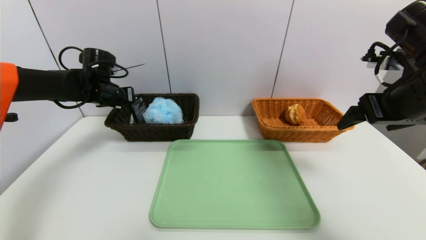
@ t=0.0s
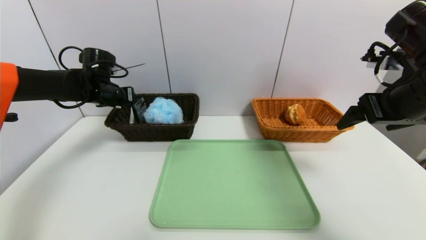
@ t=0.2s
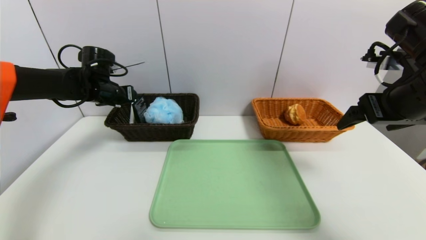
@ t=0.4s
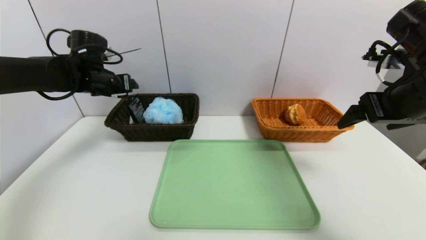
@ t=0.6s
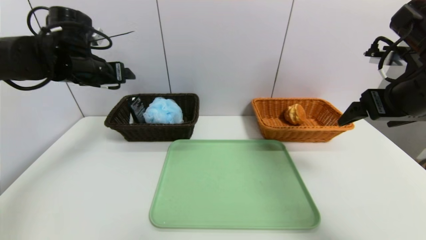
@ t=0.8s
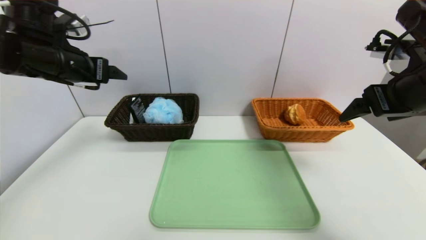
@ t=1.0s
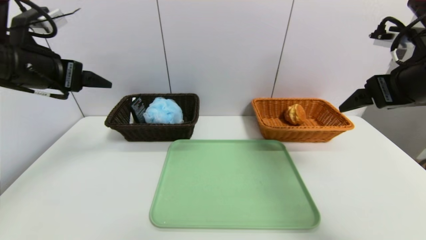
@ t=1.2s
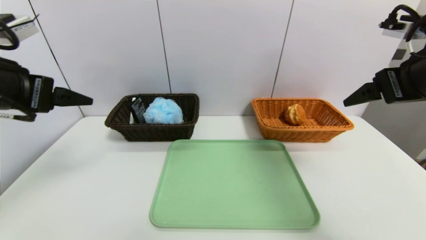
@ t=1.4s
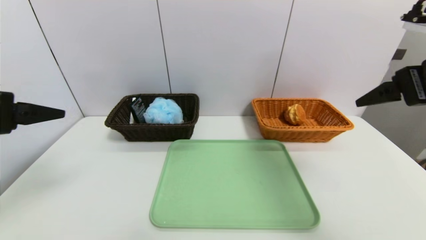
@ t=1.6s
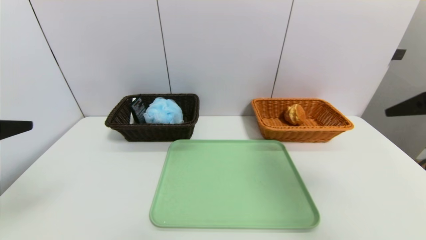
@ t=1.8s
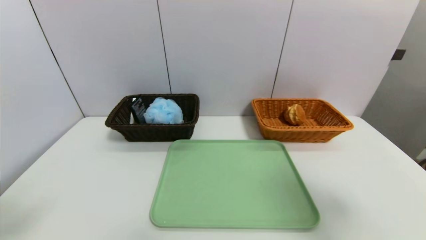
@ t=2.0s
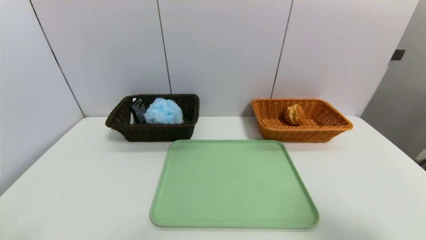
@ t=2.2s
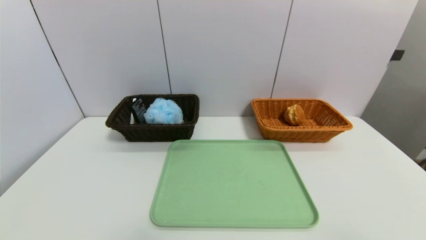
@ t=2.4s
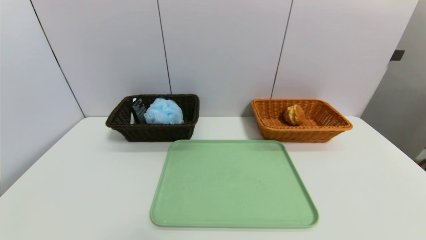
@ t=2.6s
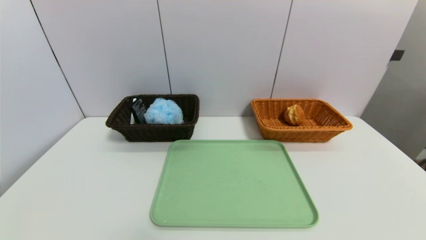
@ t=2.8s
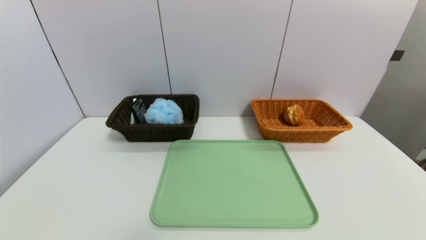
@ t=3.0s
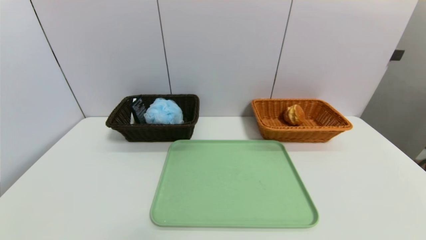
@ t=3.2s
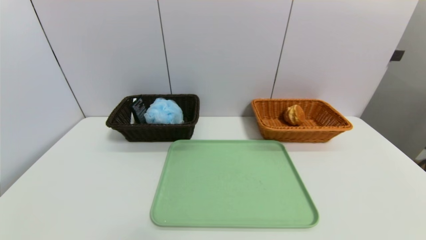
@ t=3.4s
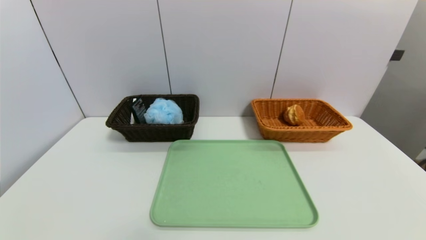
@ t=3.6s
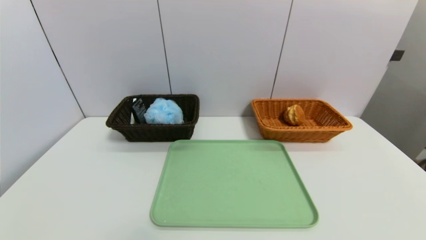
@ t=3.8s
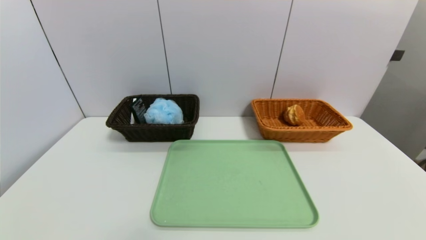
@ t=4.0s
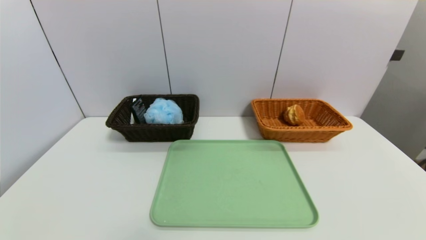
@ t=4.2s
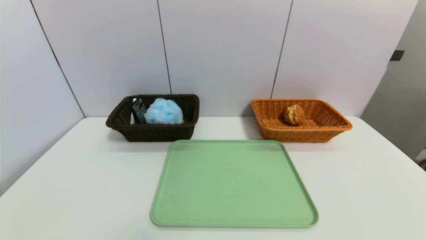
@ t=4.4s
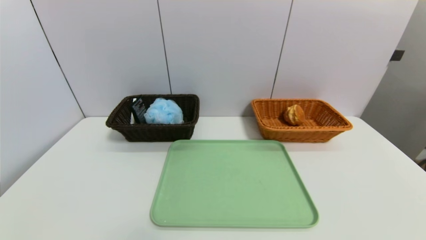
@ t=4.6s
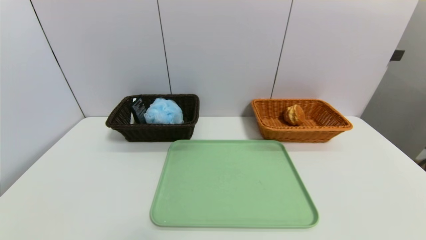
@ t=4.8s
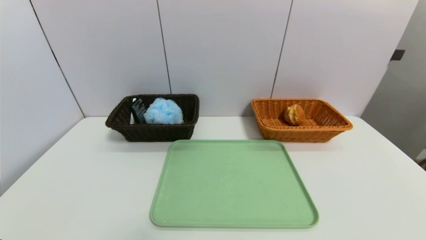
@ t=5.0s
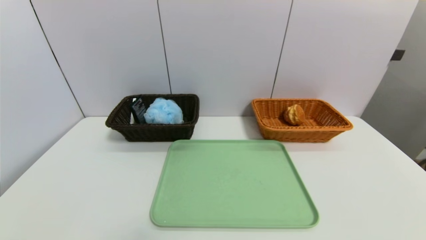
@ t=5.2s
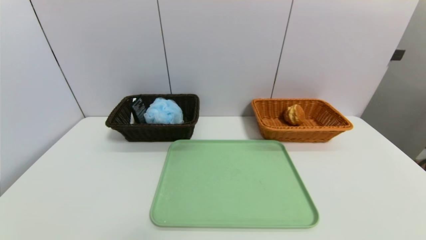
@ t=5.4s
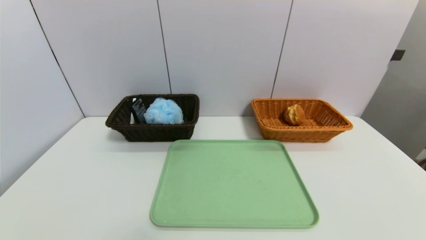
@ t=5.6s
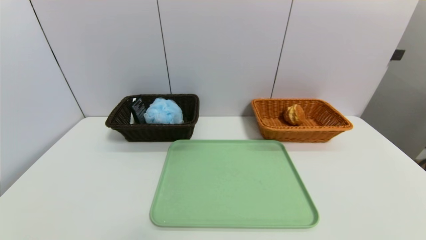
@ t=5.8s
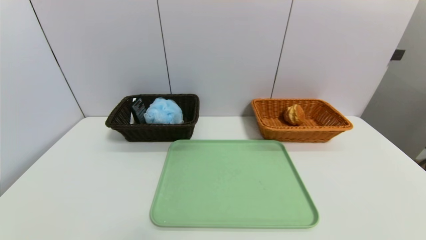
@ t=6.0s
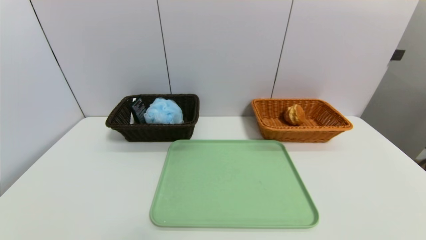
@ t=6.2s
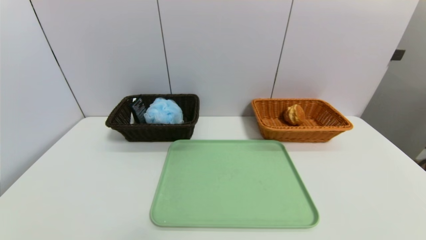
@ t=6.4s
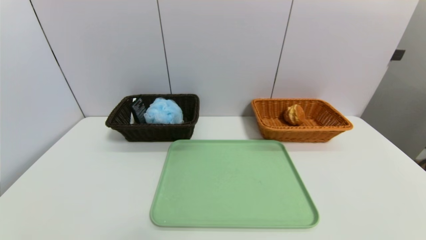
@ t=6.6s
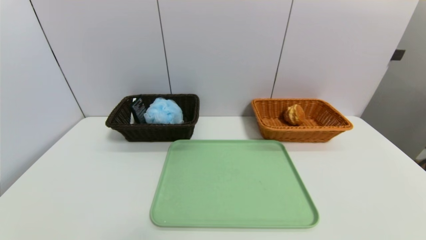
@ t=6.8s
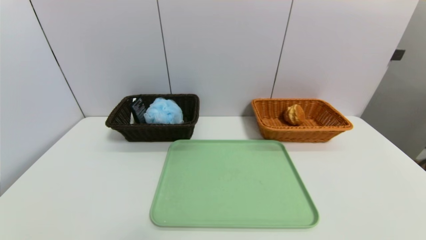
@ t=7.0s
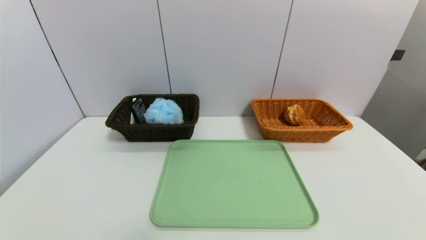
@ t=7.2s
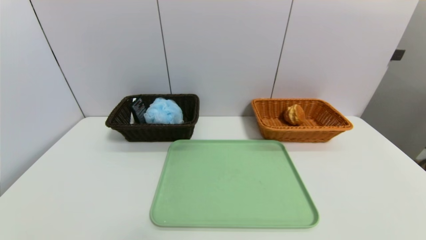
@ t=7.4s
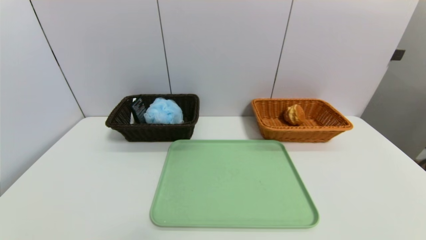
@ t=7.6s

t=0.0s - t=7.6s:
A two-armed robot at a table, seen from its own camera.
Task of the whole recording: place the food in the right basket with the right gripper, and place the non food items in the left basket with the left gripper.
t=0.0s - t=1.6s: The left gripper shifts some 30 cm backward, and opens its fingers. Meanwhile the right gripper changes place by approximately 5 cm.
t=1.6s - t=3.0s: The right gripper is displaced backward by some 30 cm. Meanwhile the left gripper travels backward and downward by some 30 cm.

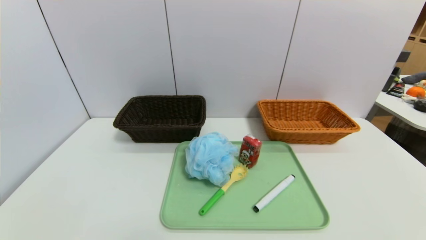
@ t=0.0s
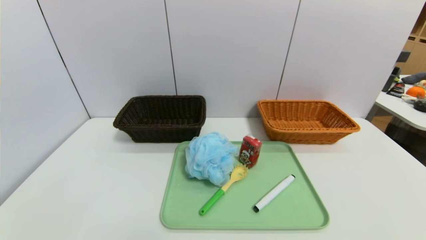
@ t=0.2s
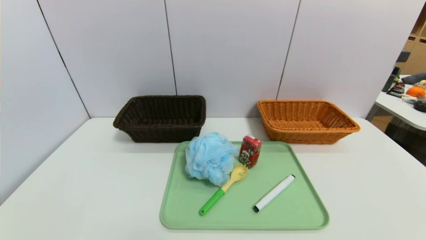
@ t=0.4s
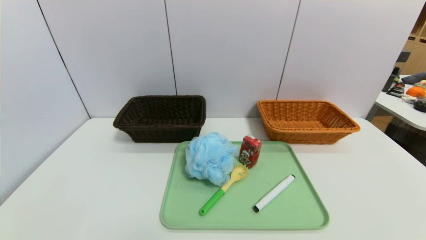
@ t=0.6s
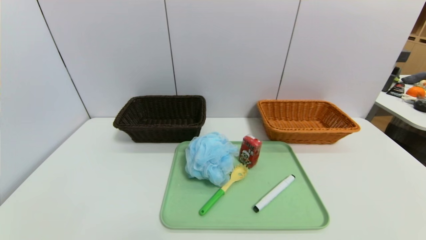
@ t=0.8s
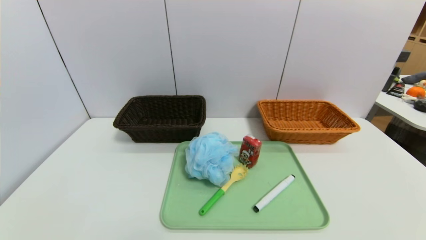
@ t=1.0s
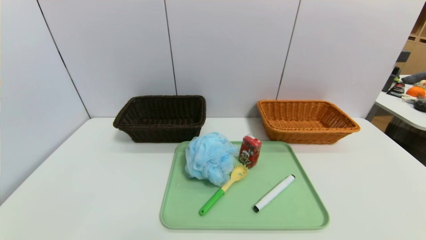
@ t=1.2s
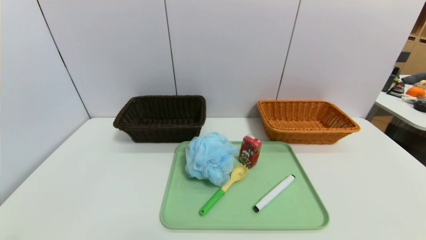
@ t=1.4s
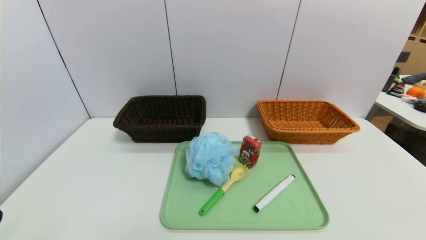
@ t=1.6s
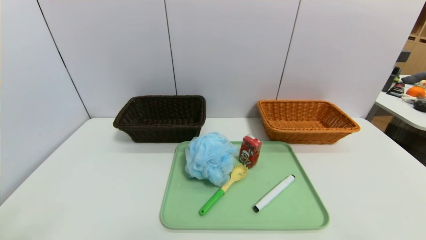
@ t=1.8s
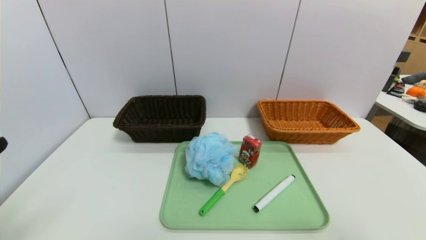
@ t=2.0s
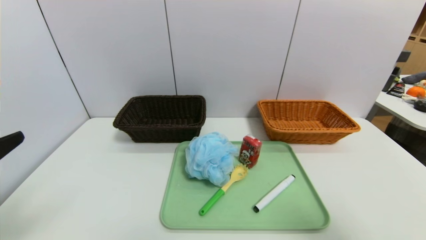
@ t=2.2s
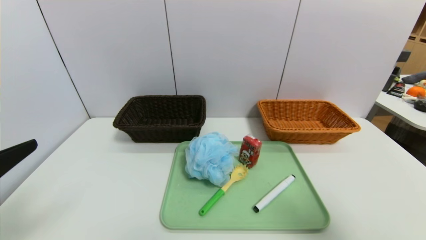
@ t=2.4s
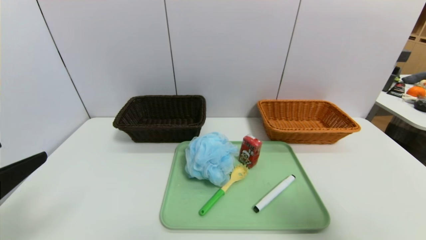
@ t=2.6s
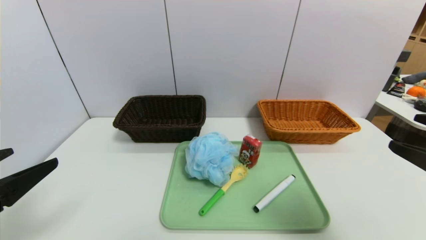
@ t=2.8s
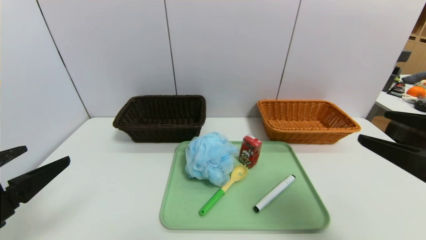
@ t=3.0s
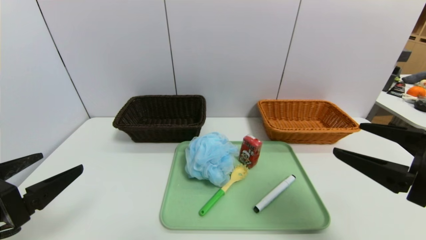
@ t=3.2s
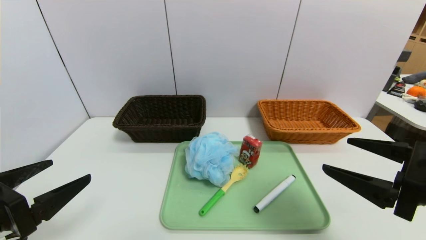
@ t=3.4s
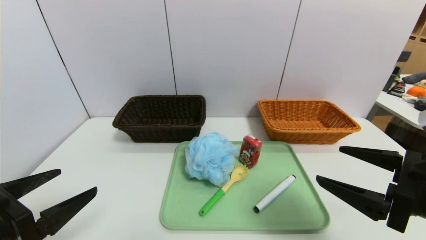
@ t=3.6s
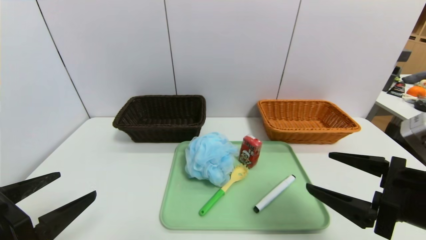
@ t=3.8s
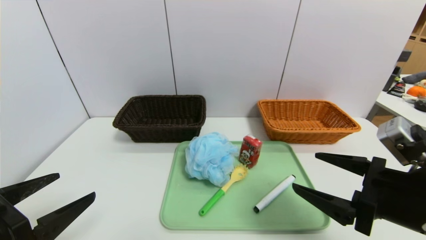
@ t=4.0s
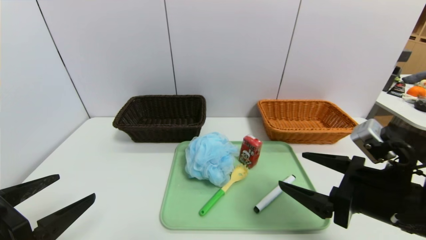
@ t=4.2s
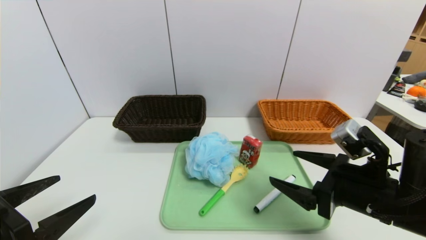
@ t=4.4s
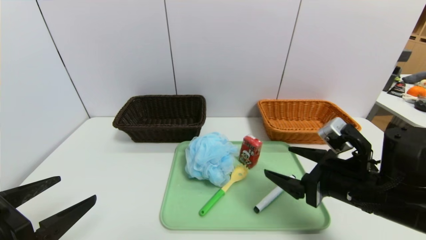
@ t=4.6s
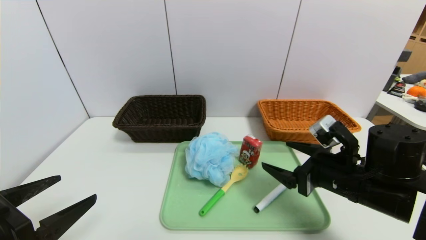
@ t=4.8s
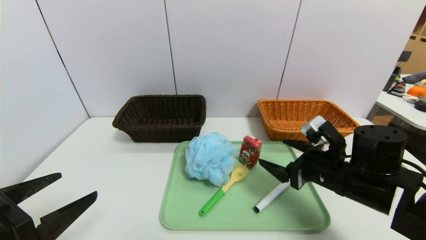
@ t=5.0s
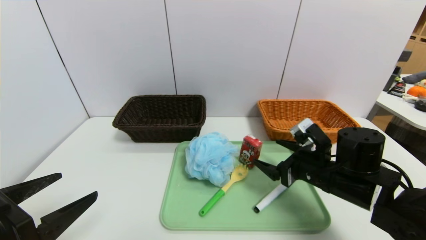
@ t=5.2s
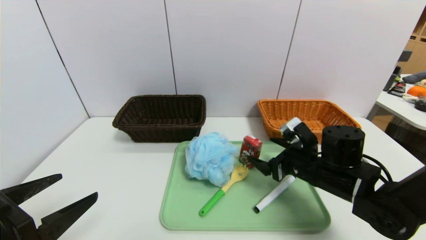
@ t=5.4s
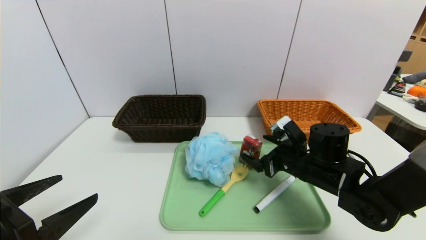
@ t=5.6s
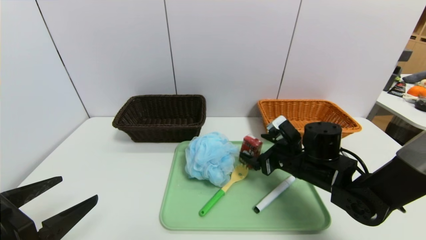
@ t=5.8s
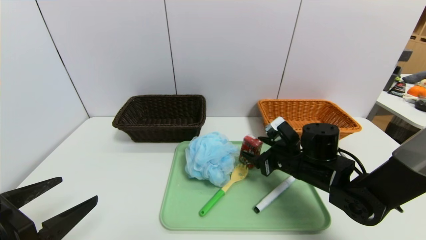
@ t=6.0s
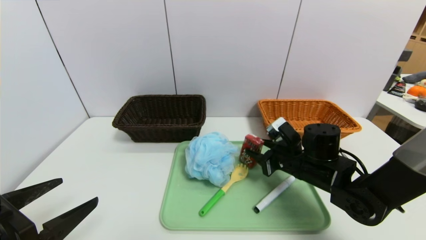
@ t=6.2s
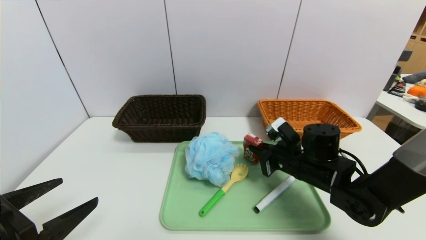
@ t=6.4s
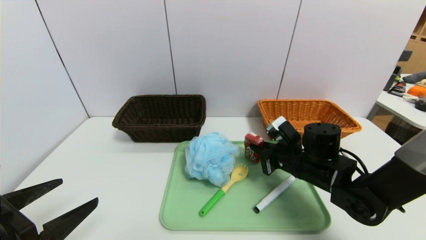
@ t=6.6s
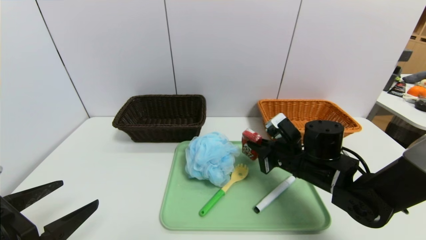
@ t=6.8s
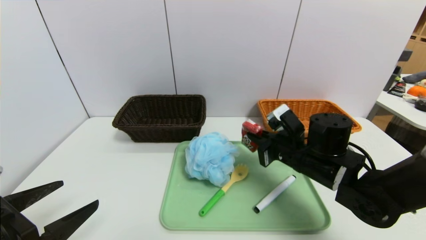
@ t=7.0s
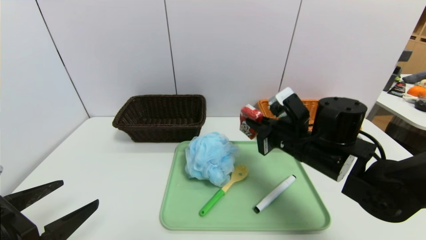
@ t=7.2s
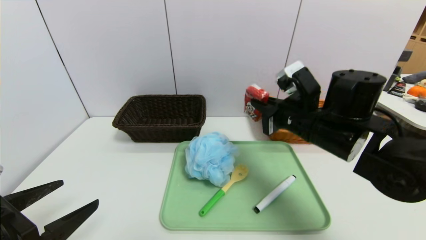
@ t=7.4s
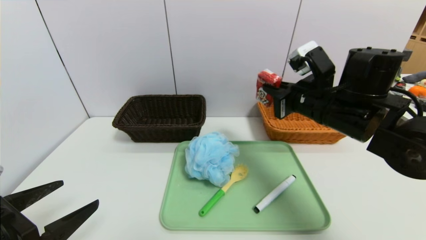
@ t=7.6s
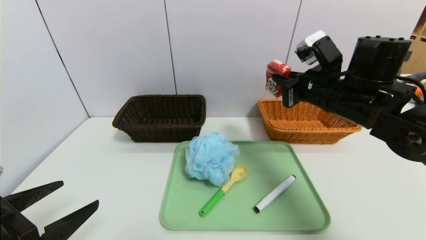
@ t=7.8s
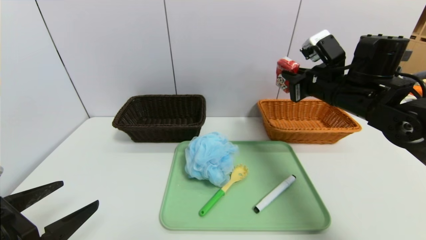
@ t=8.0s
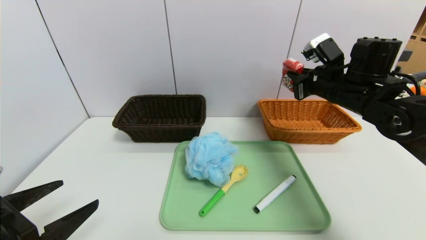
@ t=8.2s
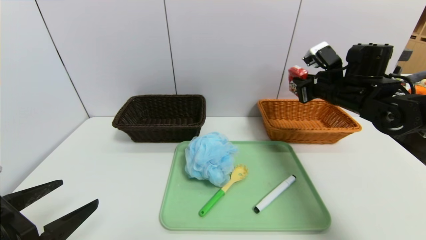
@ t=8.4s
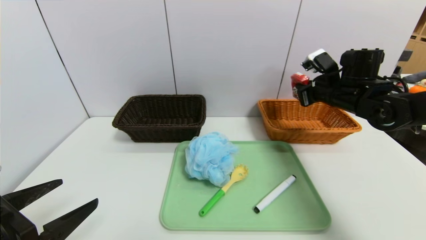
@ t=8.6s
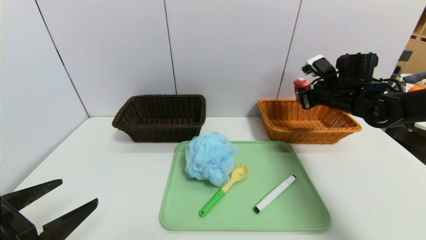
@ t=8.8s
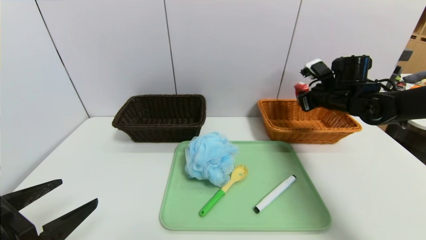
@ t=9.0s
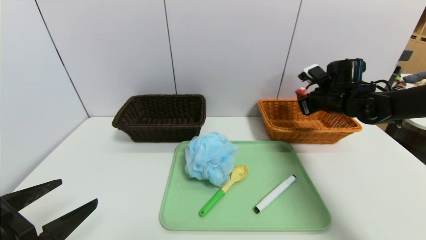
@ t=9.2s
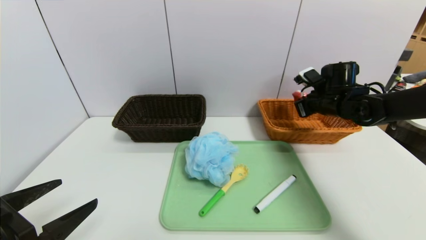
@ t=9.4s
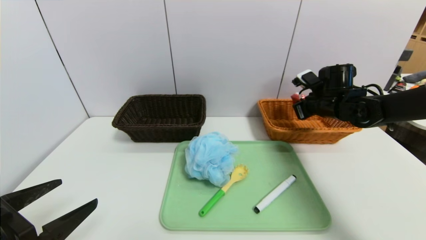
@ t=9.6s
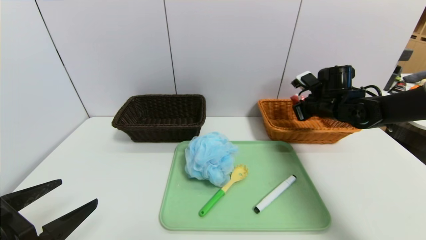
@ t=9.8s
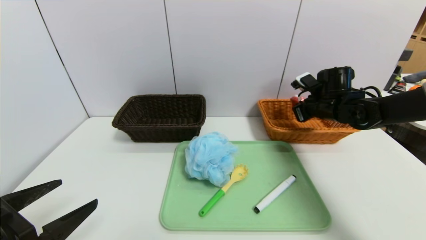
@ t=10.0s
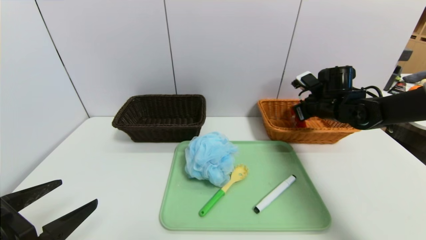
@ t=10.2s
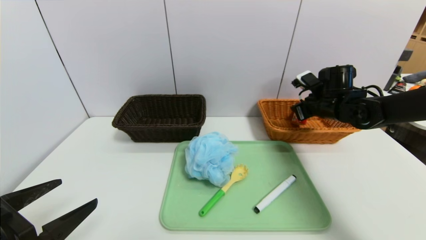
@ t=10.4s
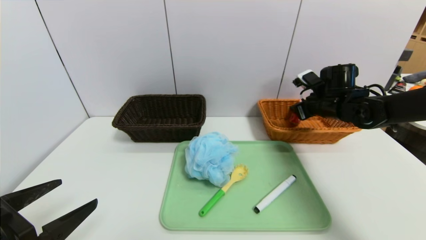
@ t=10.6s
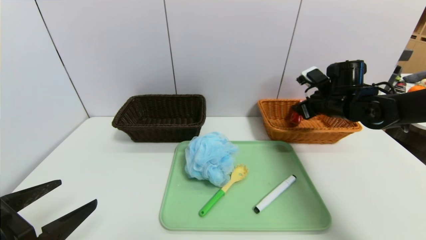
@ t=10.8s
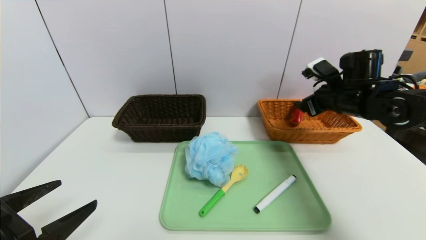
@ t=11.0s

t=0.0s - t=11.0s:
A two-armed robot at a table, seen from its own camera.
Task of the whole recording: place the food in the right basket with the right gripper, and place the non food items in the left basket with the left gripper.
t=1.6s - t=3.2s: Both grippers travel together forward, some 10 cm.
t=3.2s - t=4.8s: The right gripper is displaced downward, forward and to the left by some 15 cm.
t=4.8s - t=6.2s: The right gripper goes about 10 cm forward and downward, and closes up.
t=6.2s - t=7.8s: The right gripper travels upward by some 15 cm, and closes its fingers.
t=7.8s - t=9.4s: The right gripper shifts about 15 cm forward, to the right and downward.
t=9.4s - t=11.0s: The right gripper goes about 5 cm backward, and opens.
